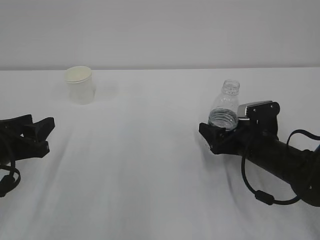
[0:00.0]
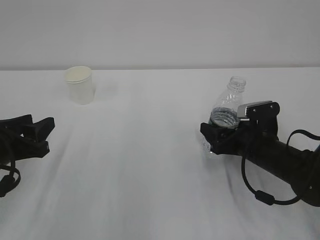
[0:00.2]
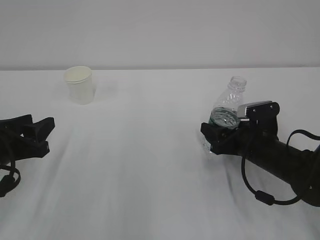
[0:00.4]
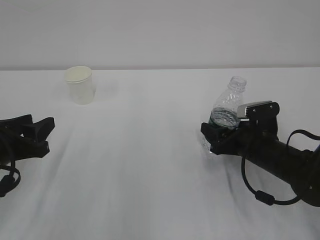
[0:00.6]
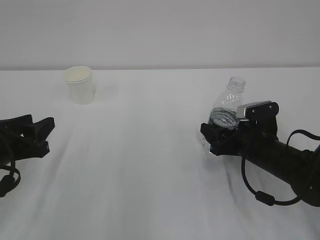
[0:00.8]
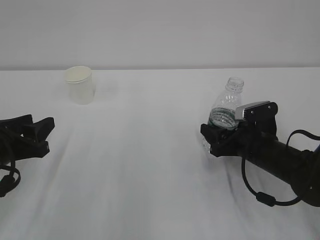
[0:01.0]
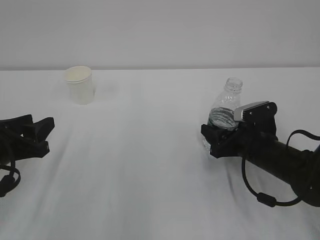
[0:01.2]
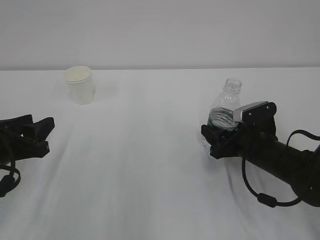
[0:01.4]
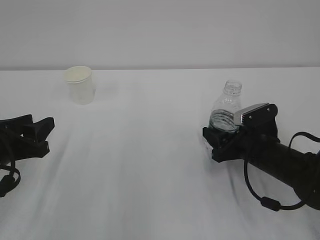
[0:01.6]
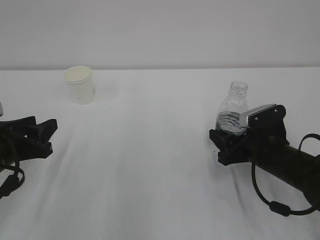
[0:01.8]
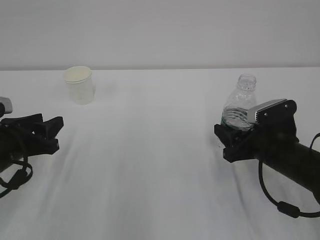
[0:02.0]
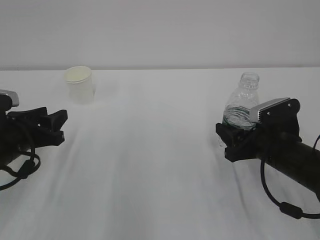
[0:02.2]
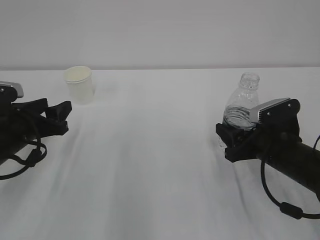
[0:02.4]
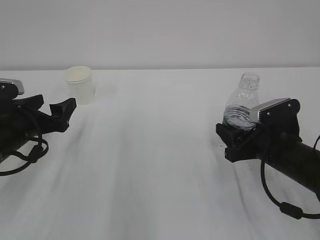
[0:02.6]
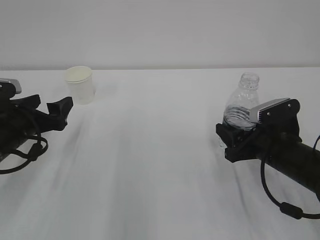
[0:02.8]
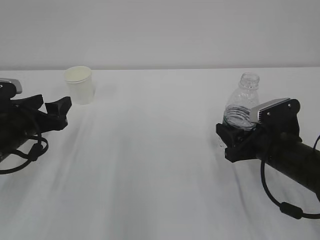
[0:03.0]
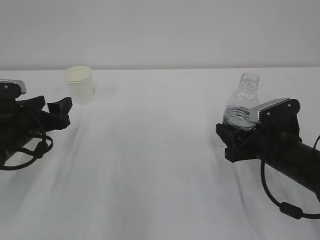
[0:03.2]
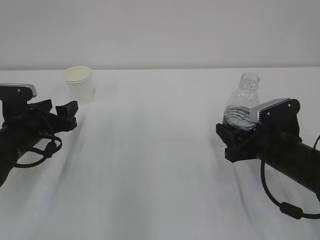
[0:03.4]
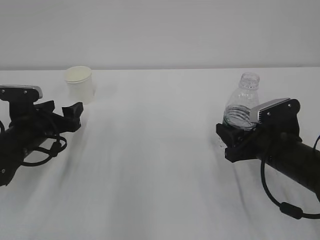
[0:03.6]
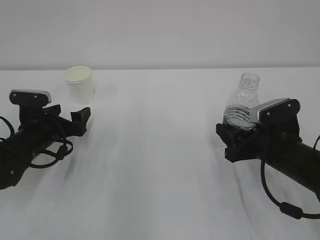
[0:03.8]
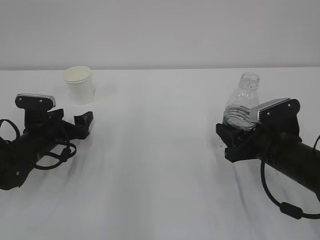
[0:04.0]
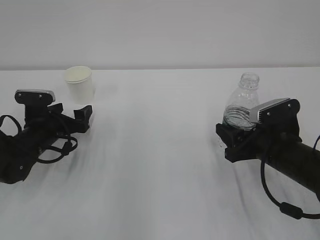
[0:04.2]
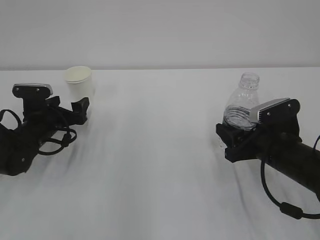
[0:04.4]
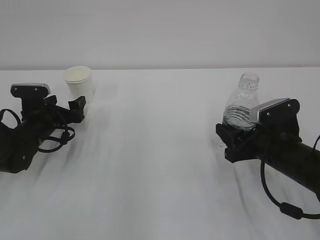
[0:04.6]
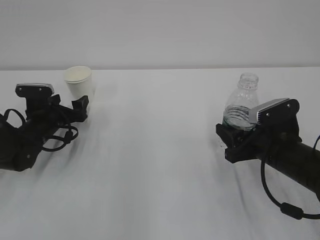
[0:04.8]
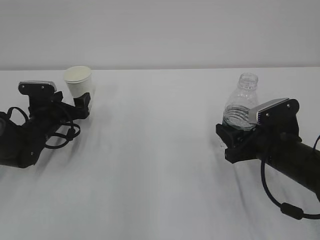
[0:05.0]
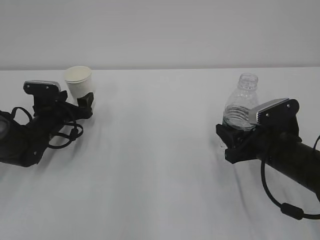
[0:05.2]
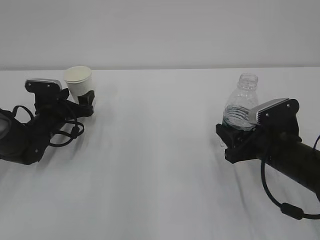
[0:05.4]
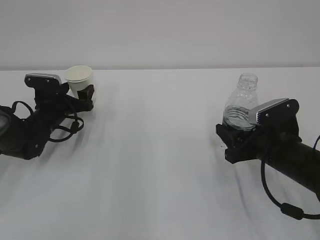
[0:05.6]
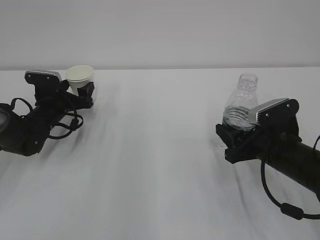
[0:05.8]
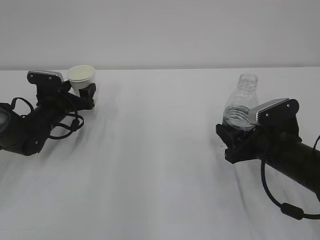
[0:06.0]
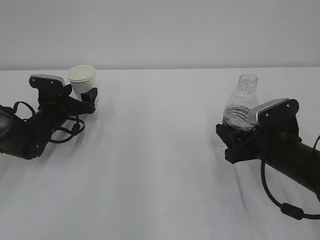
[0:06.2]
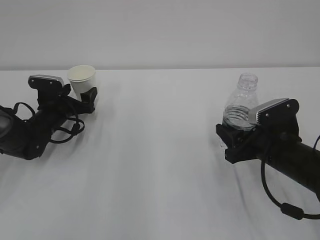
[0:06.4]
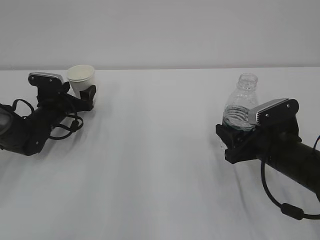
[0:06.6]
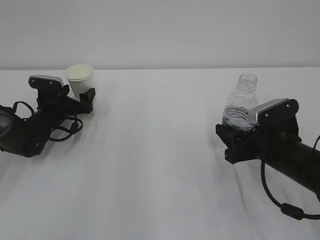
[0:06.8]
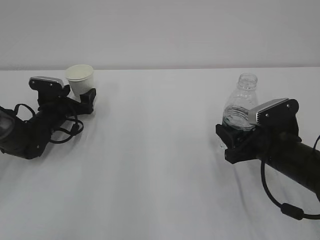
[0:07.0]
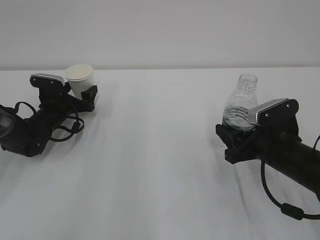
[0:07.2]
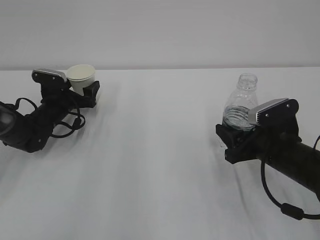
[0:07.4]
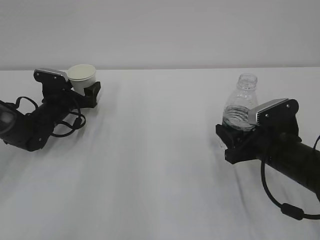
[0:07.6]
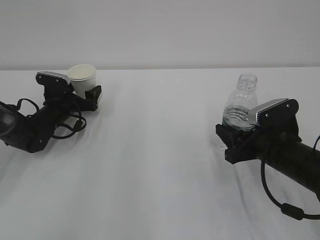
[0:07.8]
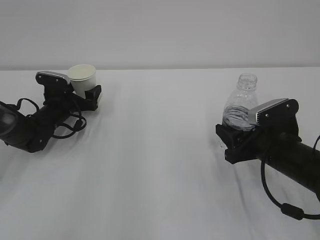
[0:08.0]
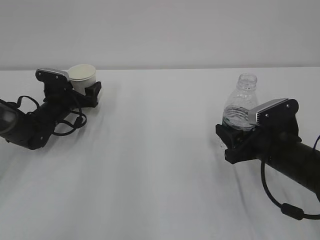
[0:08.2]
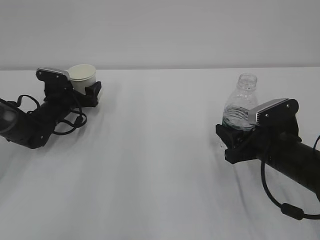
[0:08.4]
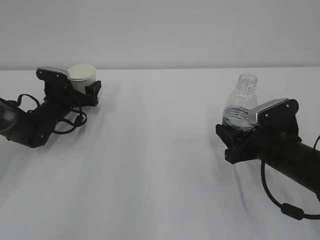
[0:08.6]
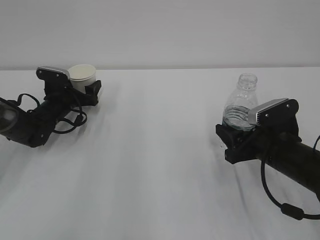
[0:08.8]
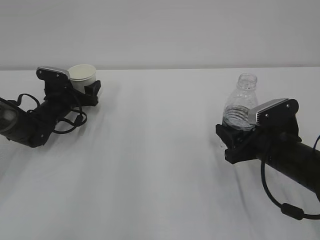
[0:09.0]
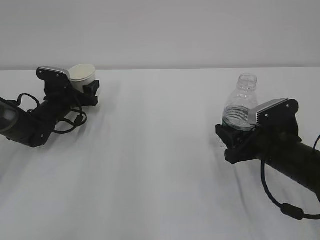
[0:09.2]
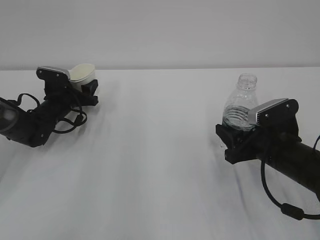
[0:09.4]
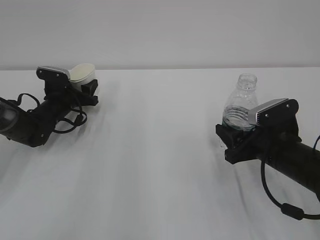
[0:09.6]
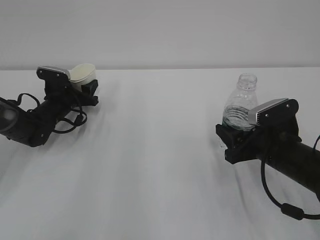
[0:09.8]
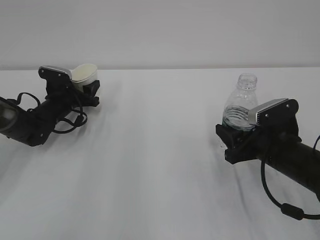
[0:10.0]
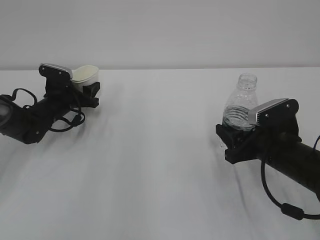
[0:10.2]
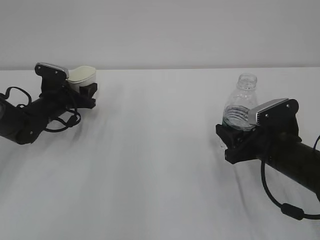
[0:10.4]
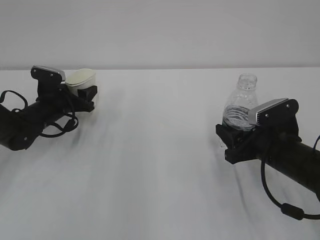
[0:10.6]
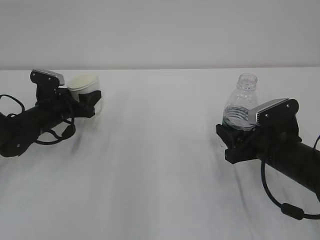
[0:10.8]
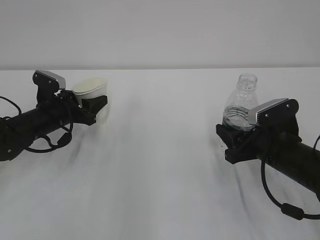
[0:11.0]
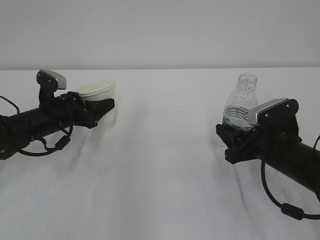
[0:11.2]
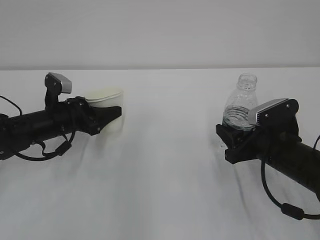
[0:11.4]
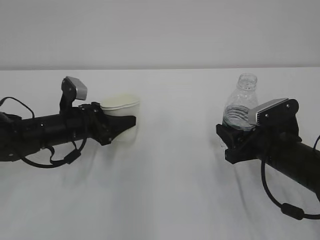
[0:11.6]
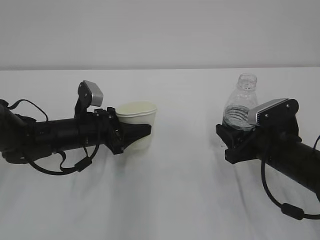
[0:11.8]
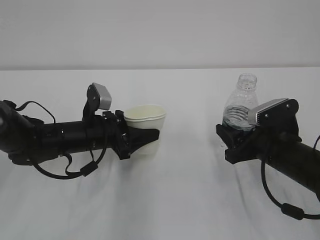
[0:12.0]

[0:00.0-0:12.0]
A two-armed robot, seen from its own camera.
0:00.0 to 0:01.6: The right gripper closes.
0:01.6 to 0:03.0: The left gripper moves forward, some 5 cm, and opens its fingers.
0:03.0 to 0:04.4: The left gripper travels forward and downward by roughly 10 cm, and opens its fingers.
0:04.4 to 0:06.0: The left gripper is displaced forward by about 5 cm.
0:06.0 to 0:07.6: There are only small adjustments of the grippers.
0:07.6 to 0:09.0: Both grippers stay about where they are.
0:09.0 to 0:10.4: The left gripper closes.
0:10.4 to 0:12.0: The left gripper moves backward and to the right, roughly 15 cm.

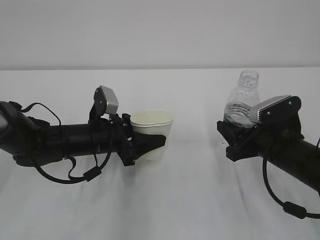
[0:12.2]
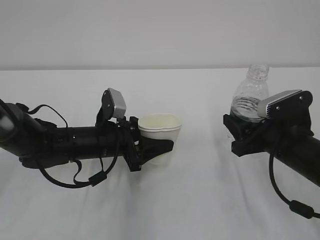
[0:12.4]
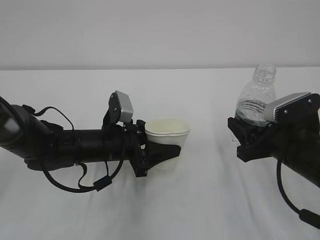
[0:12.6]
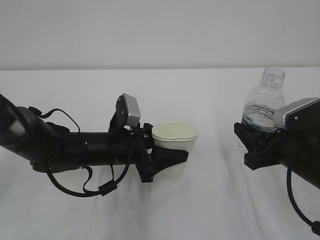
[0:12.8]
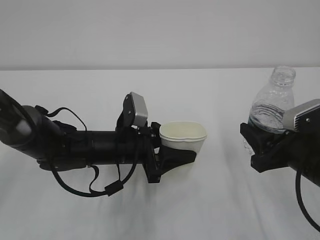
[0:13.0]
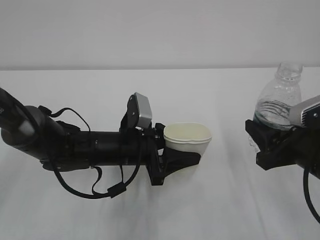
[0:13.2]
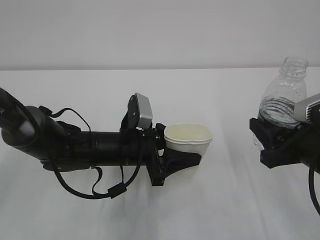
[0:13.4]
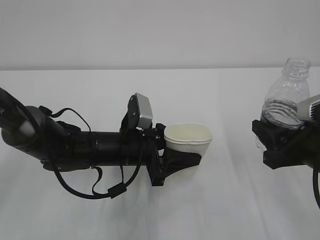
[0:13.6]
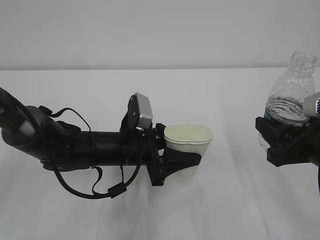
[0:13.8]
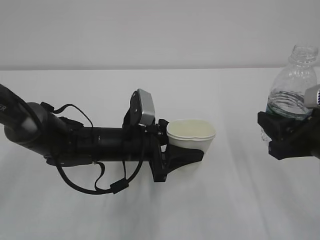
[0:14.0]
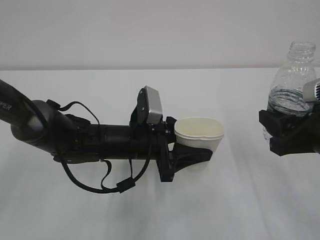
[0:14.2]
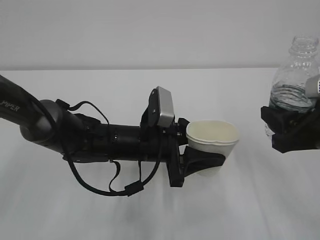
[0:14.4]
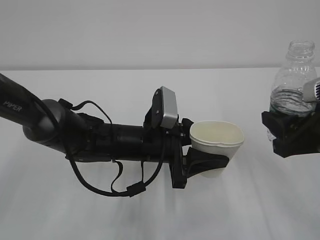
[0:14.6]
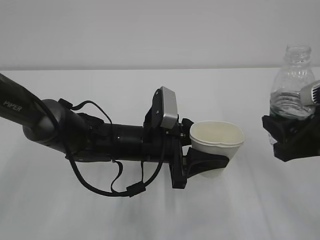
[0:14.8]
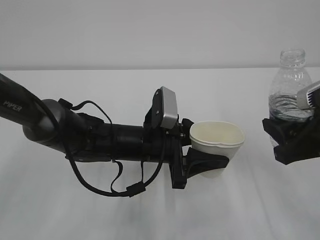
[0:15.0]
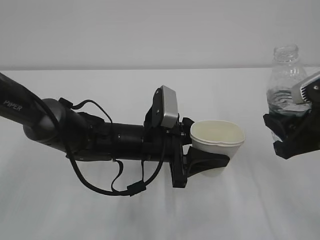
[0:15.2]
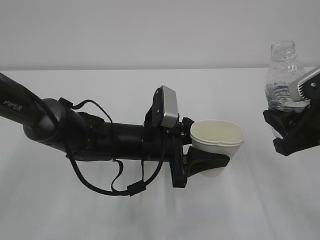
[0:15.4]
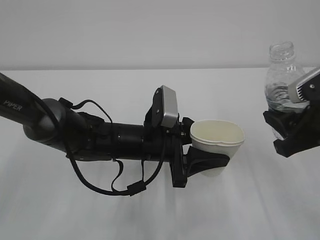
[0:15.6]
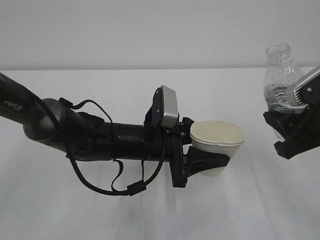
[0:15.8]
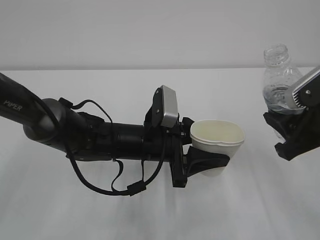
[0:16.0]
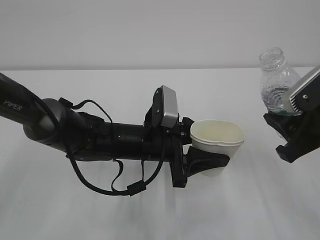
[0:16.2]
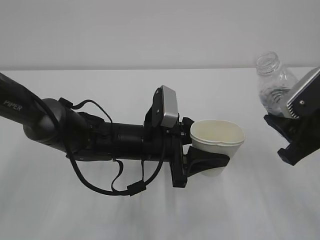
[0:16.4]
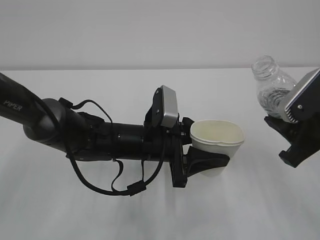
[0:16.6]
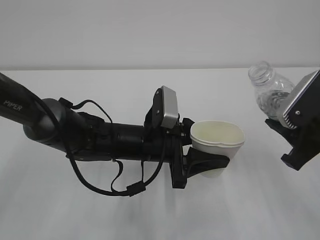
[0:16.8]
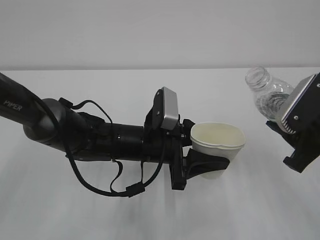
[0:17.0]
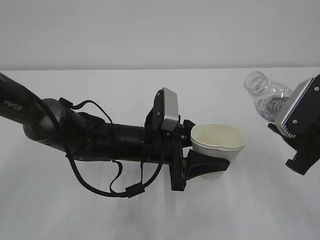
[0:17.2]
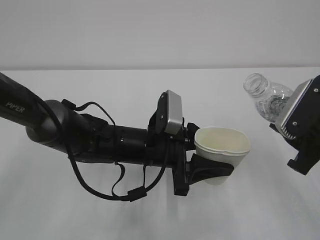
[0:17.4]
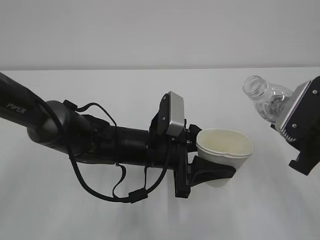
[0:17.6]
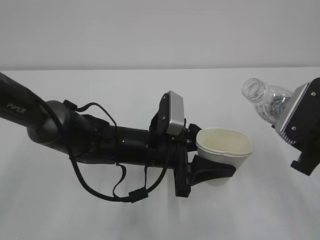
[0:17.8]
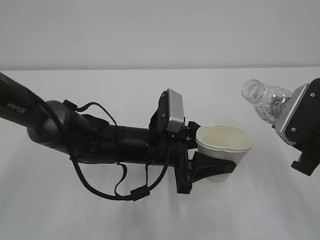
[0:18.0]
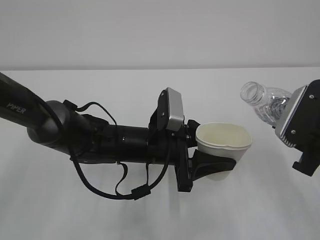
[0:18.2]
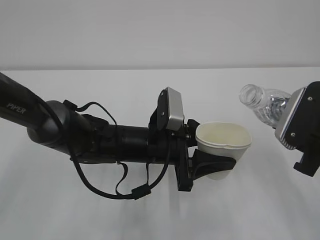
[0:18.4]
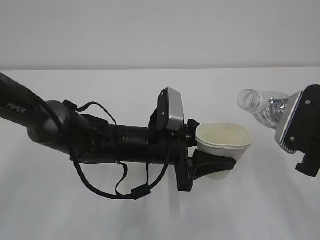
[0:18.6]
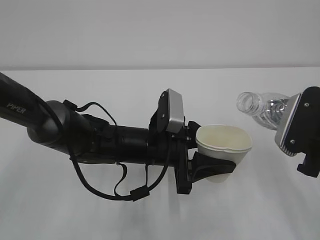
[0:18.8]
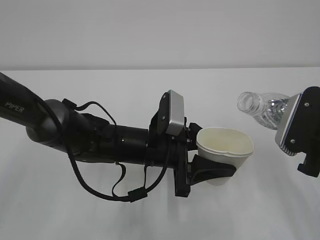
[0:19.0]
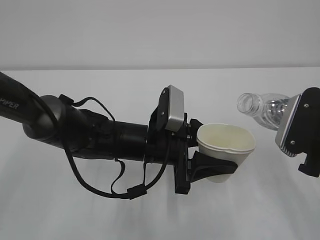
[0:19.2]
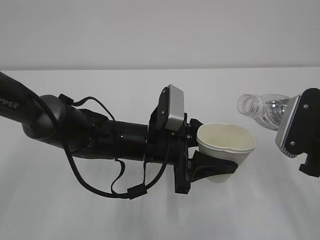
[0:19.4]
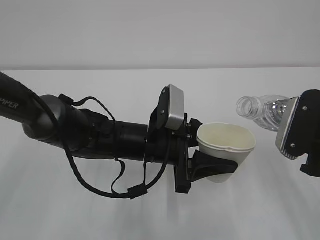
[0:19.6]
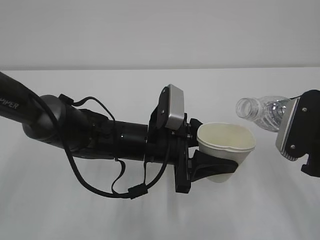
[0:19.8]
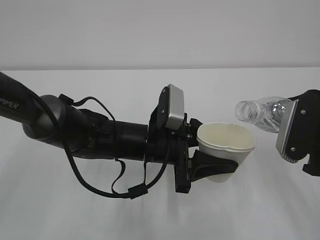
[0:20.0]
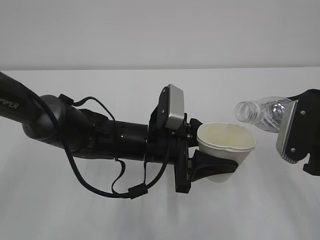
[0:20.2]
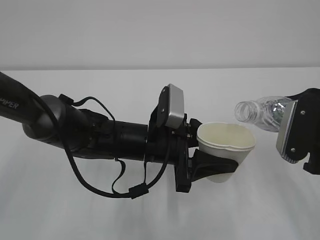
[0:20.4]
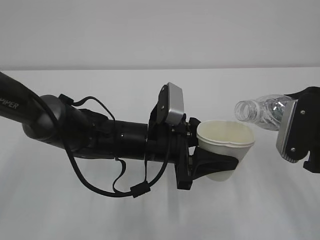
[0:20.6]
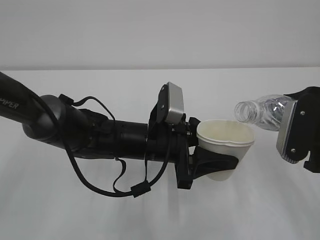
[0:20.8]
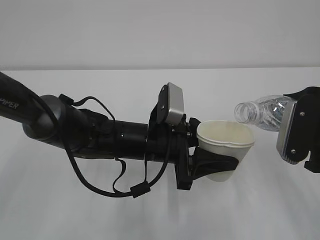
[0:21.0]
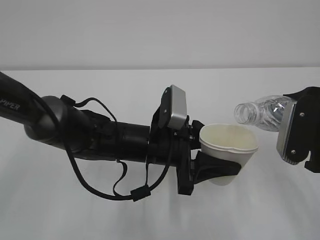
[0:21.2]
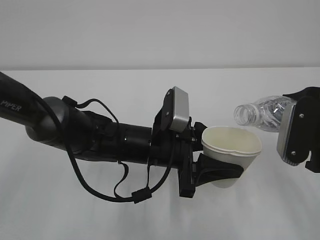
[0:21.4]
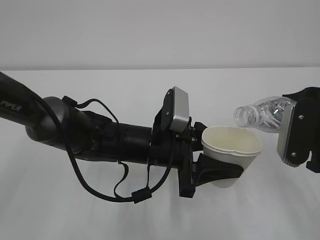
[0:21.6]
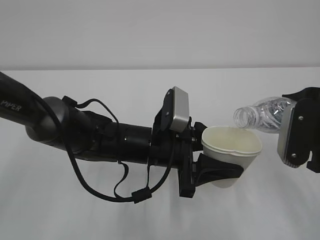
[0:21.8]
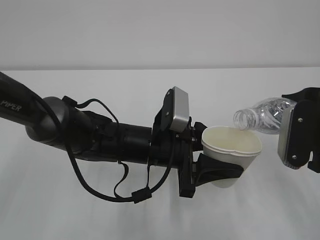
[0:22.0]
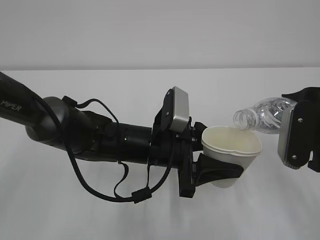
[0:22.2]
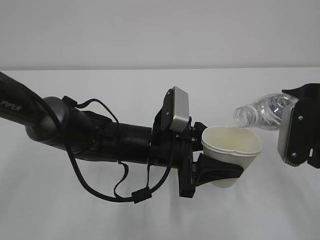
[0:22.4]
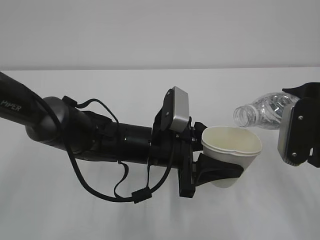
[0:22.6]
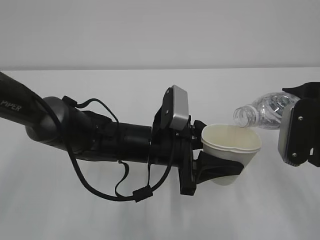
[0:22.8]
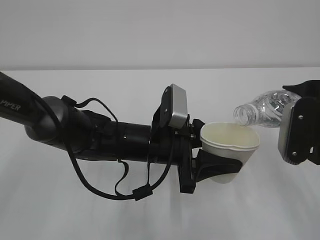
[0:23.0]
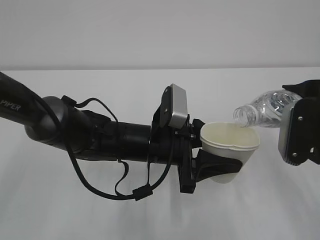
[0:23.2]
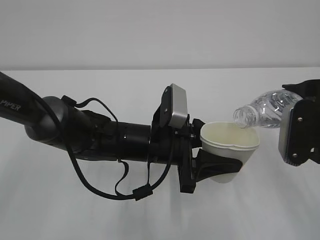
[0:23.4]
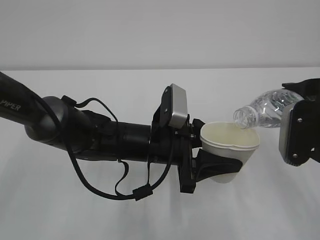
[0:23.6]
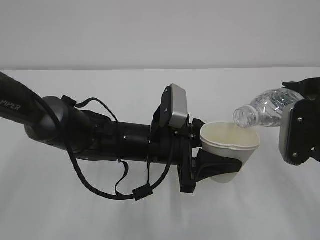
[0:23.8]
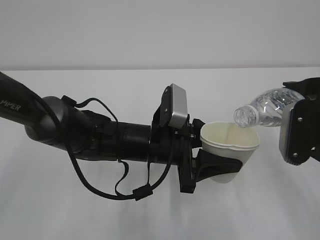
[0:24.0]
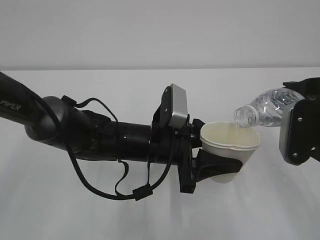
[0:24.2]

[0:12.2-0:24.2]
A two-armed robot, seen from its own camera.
0:12.2 to 0:13.8: The right gripper shifts about 10 cm backward and upward. The left gripper moves to the right, approximately 5 cm.
0:13.8 to 0:15.2: The grippers make only small movements.
0:16.6 to 0:18.2: There are only small adjustments of the grippers.
0:18.2 to 0:21.2: The grippers make only small movements.
0:21.2 to 0:24.2: The grippers make only small movements.
